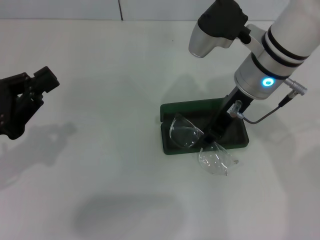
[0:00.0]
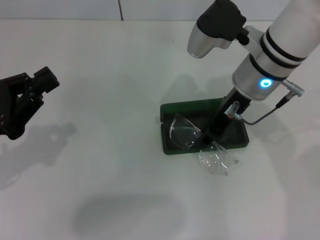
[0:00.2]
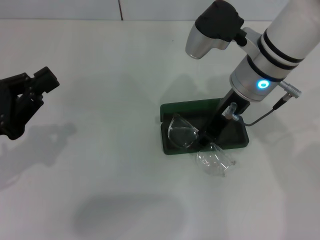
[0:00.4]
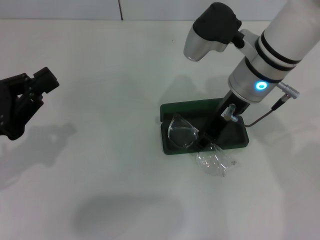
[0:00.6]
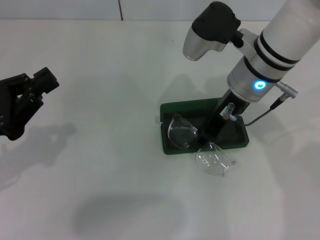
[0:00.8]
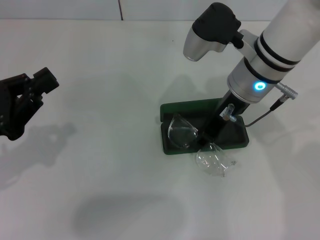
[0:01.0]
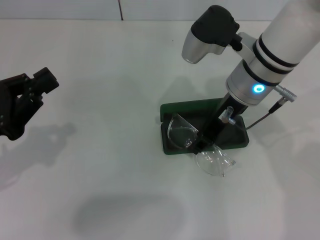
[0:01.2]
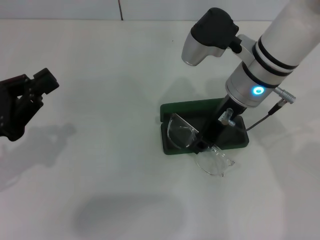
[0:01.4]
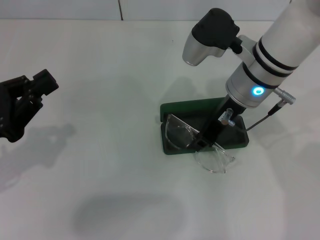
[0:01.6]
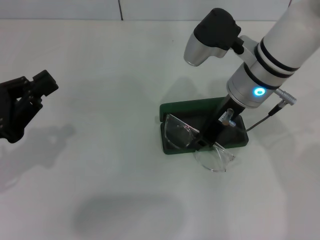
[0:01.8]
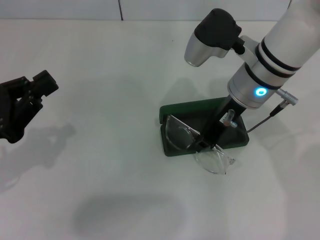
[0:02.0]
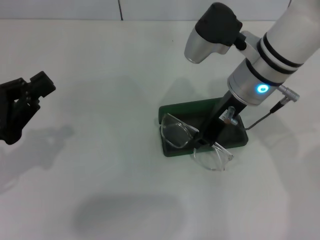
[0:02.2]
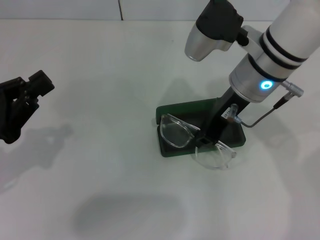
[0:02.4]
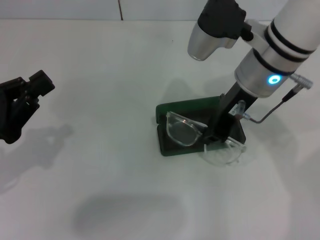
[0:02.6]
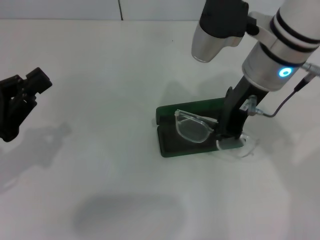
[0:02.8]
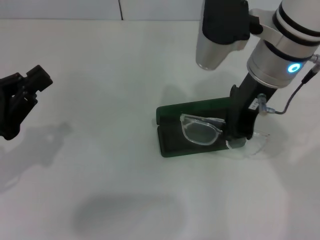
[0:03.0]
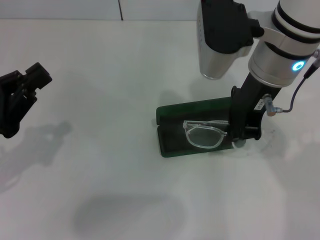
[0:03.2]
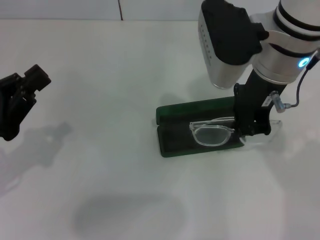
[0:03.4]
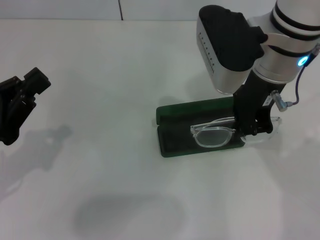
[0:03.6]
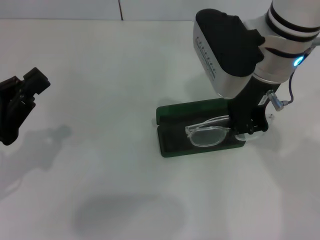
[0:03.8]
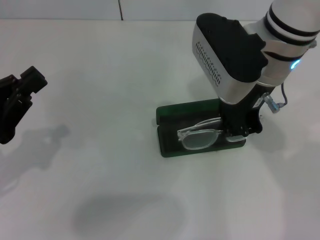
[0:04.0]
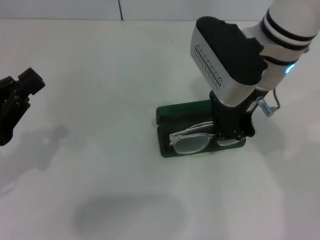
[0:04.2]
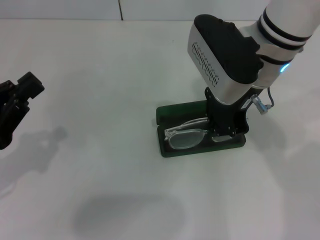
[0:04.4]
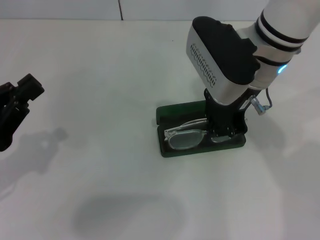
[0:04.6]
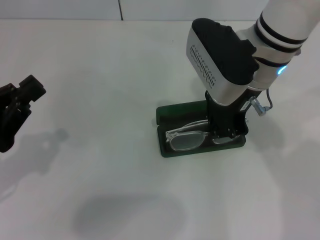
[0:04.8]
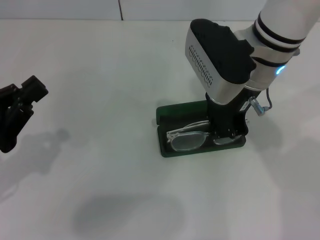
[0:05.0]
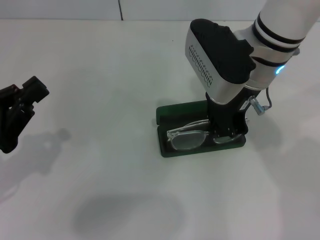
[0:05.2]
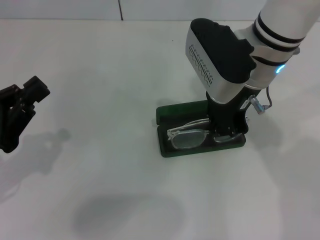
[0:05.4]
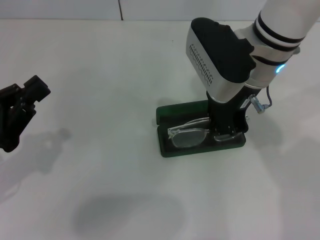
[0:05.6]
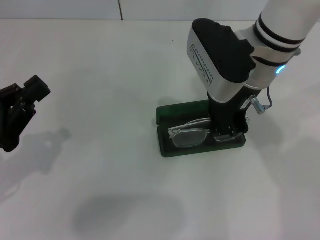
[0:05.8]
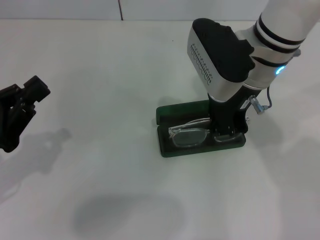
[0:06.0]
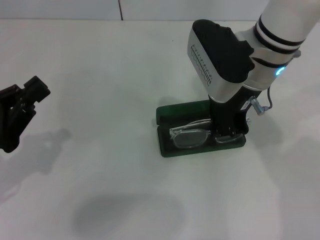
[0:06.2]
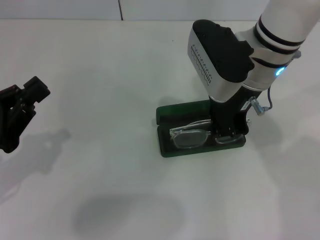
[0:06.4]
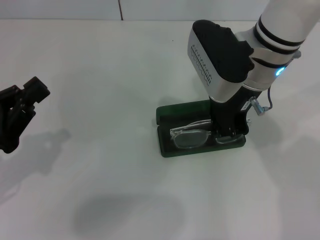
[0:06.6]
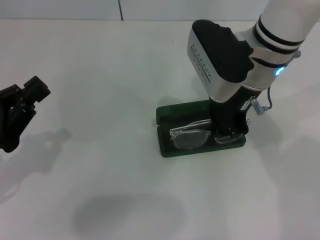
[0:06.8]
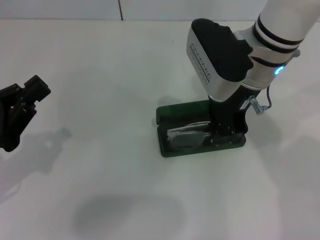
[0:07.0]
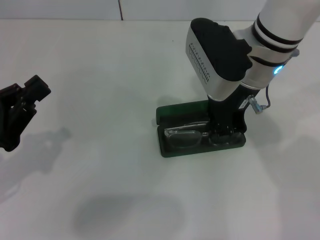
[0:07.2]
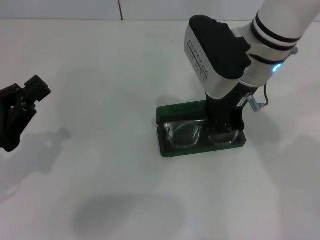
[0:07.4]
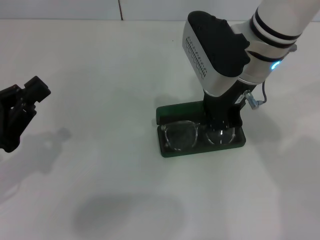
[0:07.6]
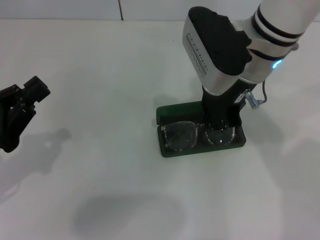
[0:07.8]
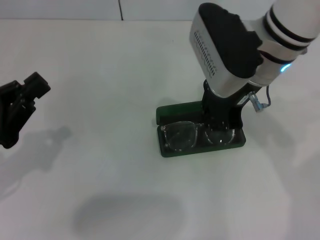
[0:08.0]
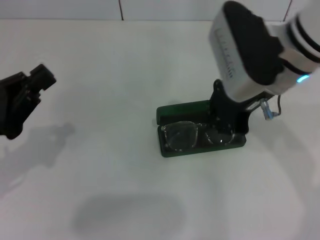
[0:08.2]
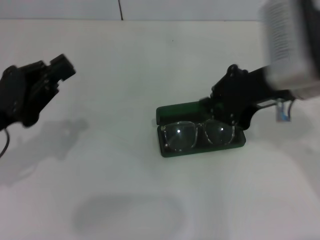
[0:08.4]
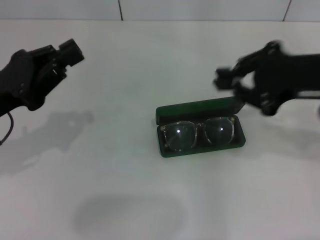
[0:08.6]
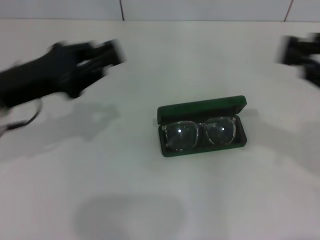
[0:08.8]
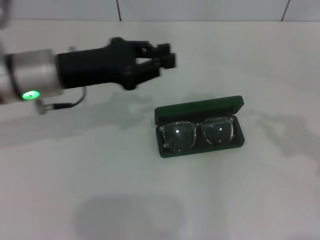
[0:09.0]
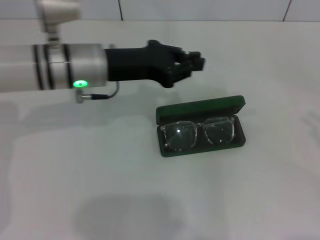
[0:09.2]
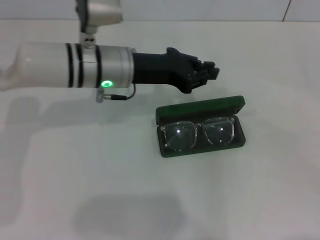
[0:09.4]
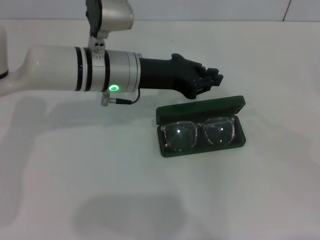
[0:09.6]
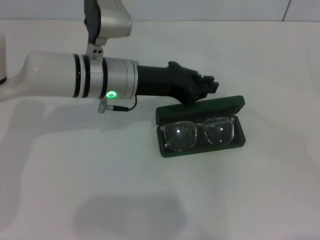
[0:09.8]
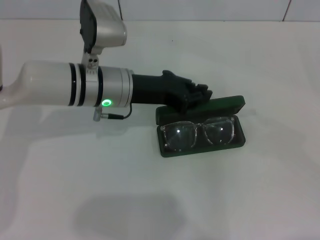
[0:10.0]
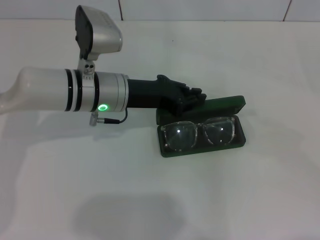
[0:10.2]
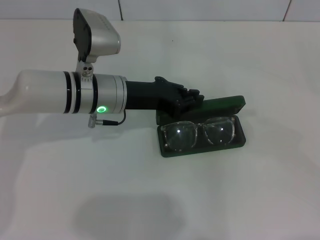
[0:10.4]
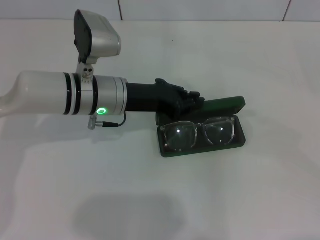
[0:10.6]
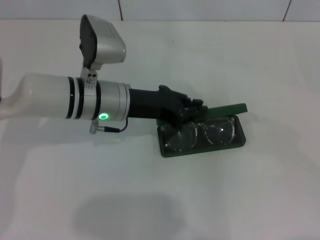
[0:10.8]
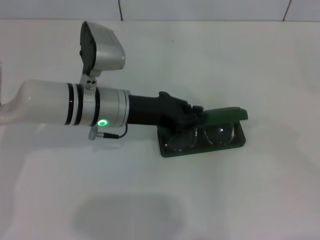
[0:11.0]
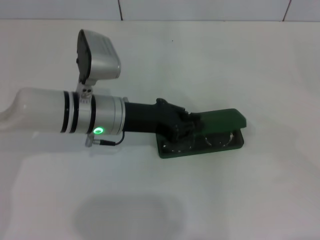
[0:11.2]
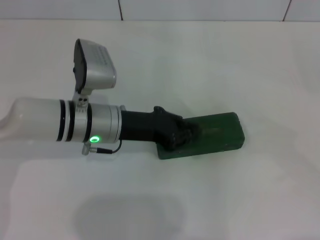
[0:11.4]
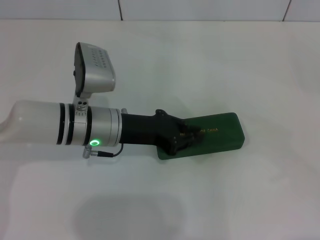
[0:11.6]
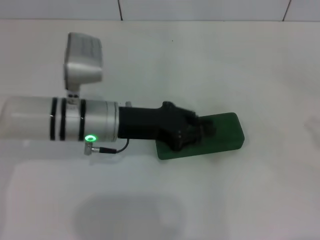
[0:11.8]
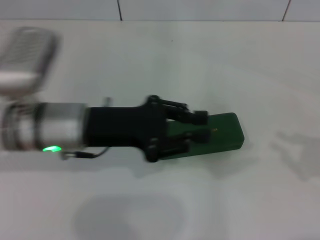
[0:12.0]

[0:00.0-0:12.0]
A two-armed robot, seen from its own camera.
Step, 0:00.0 to 0:07.6: Put the glasses into the case with your right hand.
Step, 0:07.8 to 0:11.4: Close the glasses case with your left hand.
0:00.0 to 0:01.6: There are only small adjustments of the grippers.
0:01.6 to 0:03.0: The right gripper travels upward by roughly 5 cm.
0:04.4 to 0:06.0: The grippers move only a little.
0:06.0 to 0:07.6: The two grippers keep their place.
0:07.6 to 0:09.0: The left gripper goes approximately 15 cm forward and to the right. The right gripper goes about 30 cm to the right and backward.
0:09.0 to 0:10.4: The two grippers go some 10 cm to the right and downward.
0:10.4 to 0:12.0: The left gripper moves backward, roughly 5 cm; the right gripper moves to the left, some 5 cm.

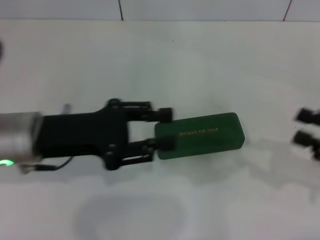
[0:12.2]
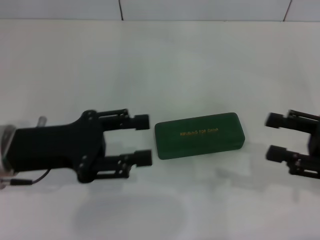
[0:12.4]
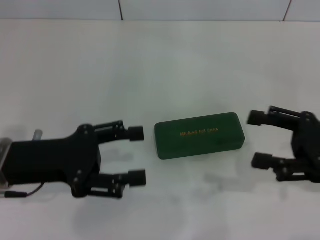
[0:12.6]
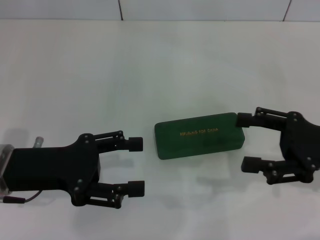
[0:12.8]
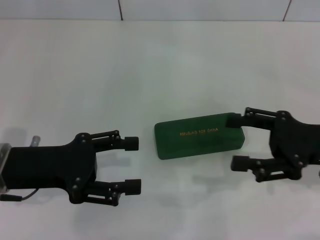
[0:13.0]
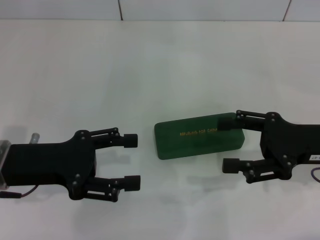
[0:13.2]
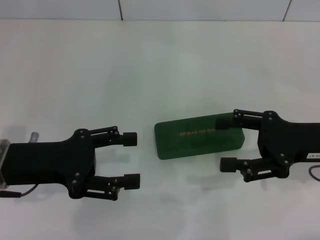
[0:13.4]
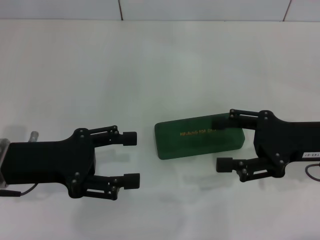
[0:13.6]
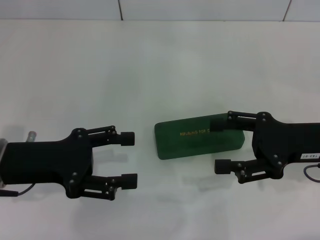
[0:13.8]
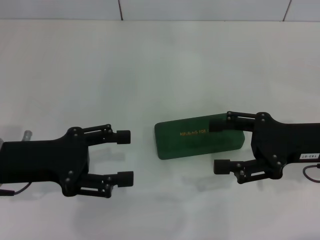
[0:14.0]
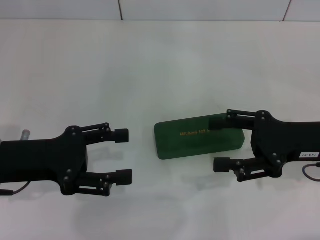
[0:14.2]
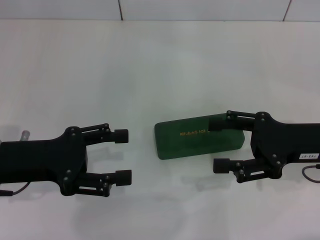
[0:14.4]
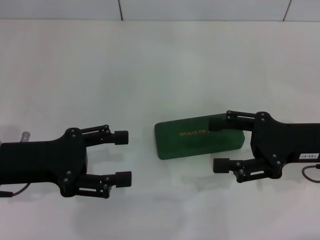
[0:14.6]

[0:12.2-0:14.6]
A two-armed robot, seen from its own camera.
0:12.2 to 0:13.4: The right gripper heads to the left and forward, covering about 10 cm, and opens; the left gripper ends up some 5 cm from where it was, and opens up.
0:13.4 to 0:14.6: Neither gripper changes place.
